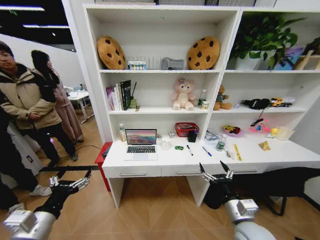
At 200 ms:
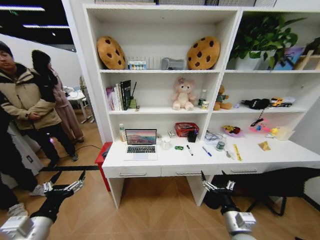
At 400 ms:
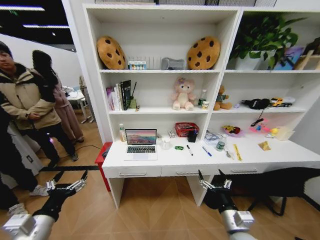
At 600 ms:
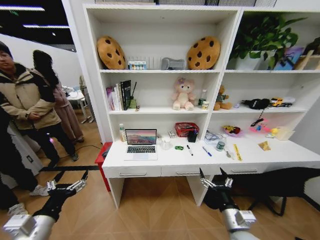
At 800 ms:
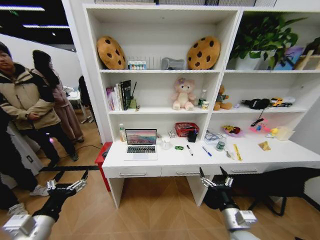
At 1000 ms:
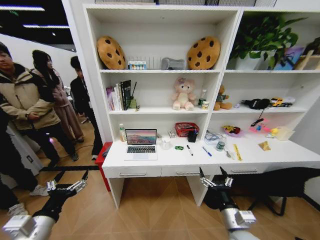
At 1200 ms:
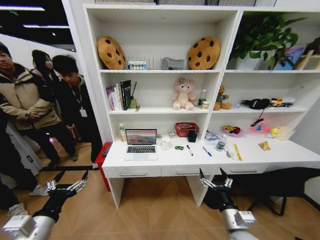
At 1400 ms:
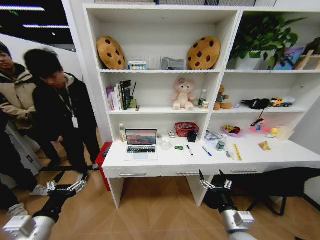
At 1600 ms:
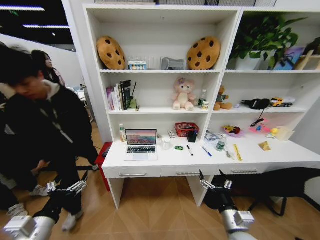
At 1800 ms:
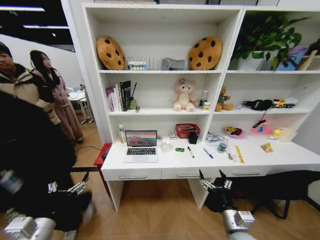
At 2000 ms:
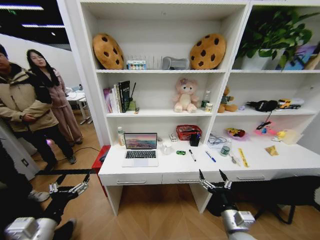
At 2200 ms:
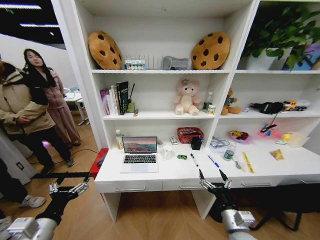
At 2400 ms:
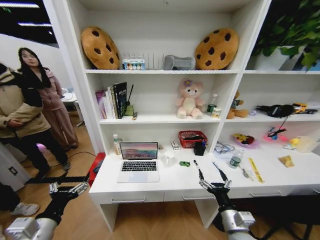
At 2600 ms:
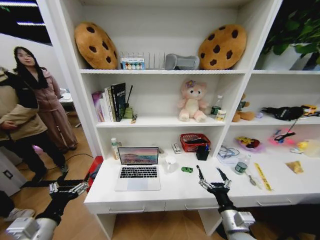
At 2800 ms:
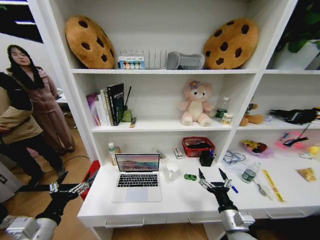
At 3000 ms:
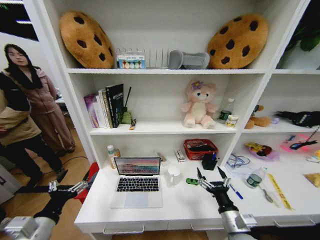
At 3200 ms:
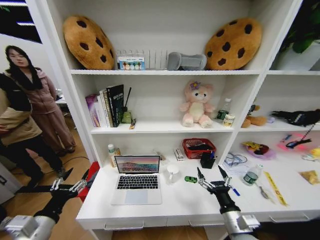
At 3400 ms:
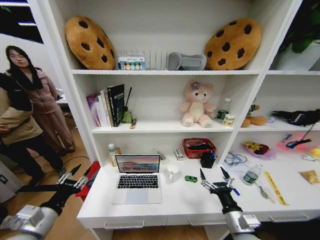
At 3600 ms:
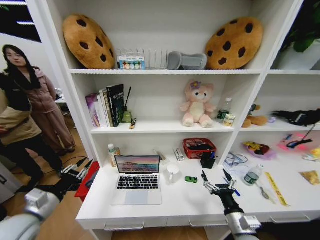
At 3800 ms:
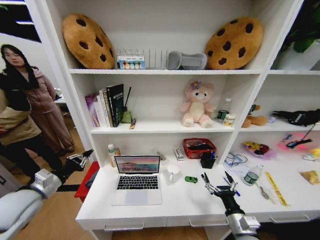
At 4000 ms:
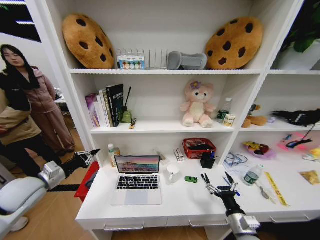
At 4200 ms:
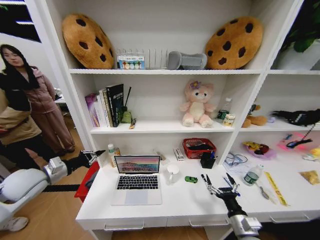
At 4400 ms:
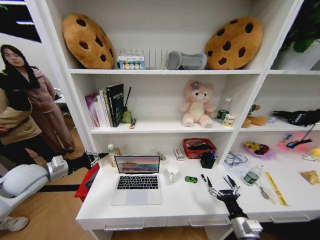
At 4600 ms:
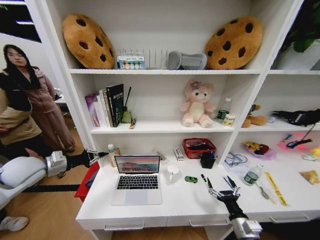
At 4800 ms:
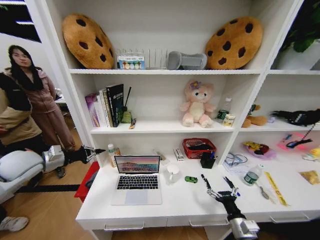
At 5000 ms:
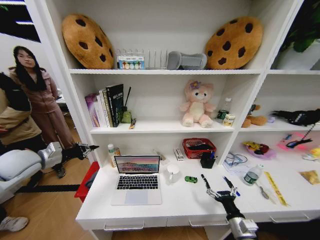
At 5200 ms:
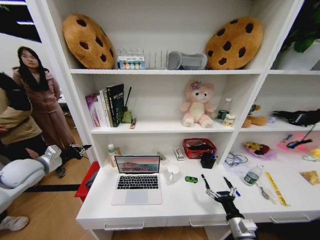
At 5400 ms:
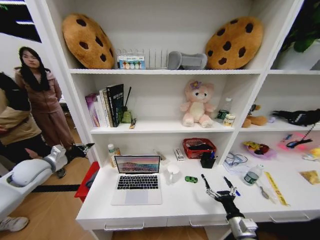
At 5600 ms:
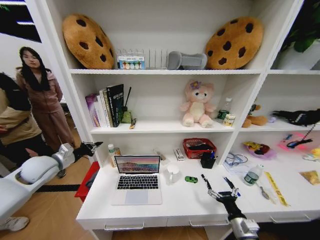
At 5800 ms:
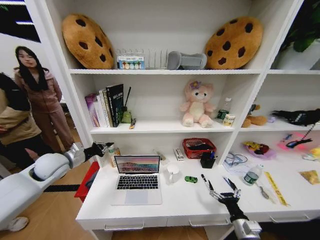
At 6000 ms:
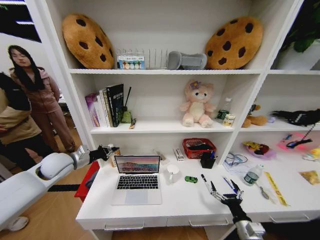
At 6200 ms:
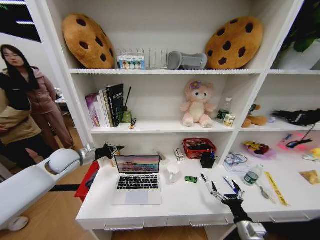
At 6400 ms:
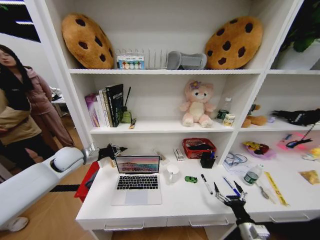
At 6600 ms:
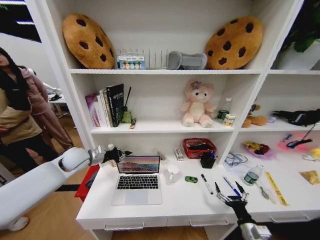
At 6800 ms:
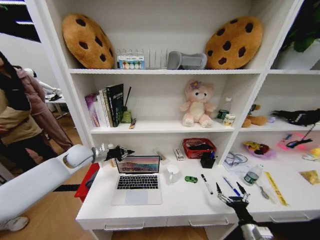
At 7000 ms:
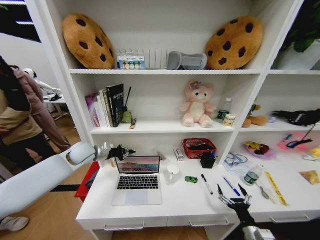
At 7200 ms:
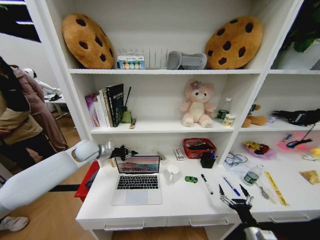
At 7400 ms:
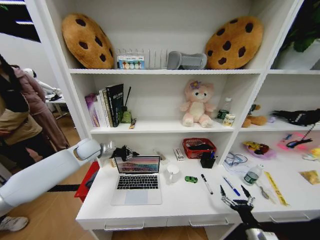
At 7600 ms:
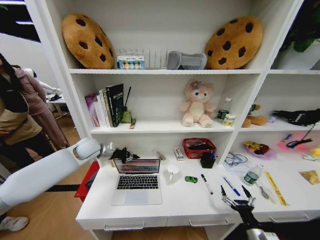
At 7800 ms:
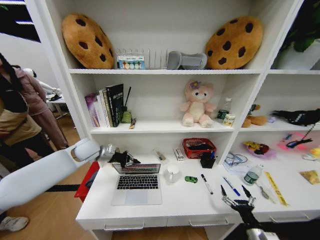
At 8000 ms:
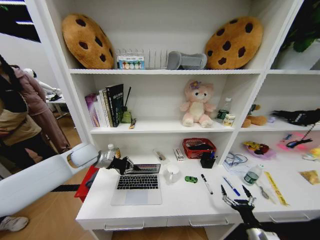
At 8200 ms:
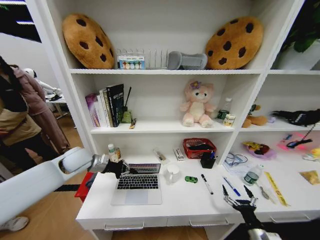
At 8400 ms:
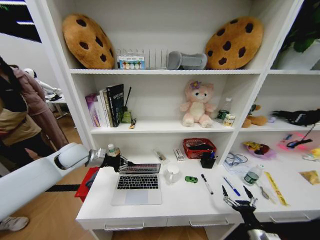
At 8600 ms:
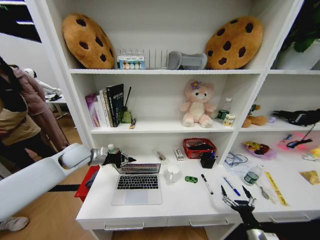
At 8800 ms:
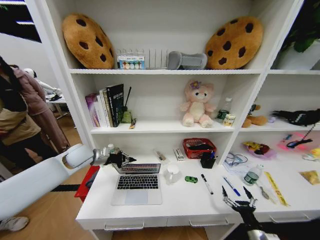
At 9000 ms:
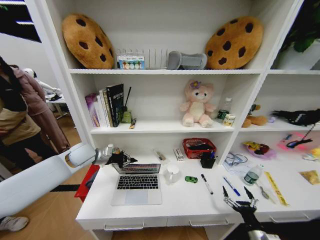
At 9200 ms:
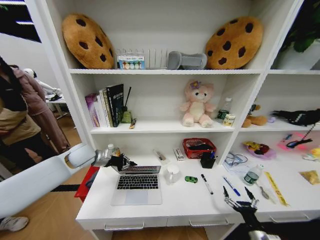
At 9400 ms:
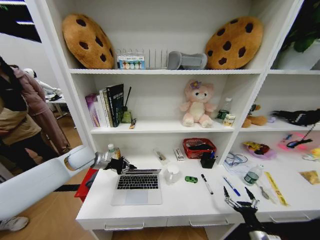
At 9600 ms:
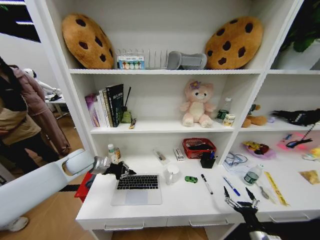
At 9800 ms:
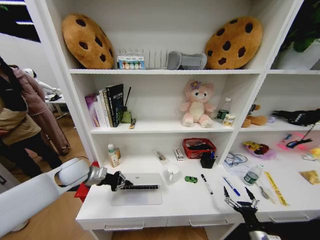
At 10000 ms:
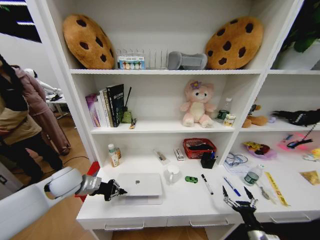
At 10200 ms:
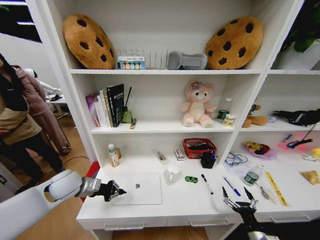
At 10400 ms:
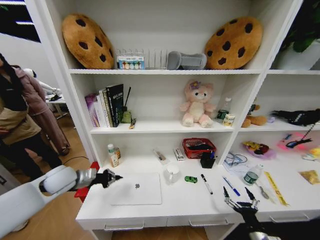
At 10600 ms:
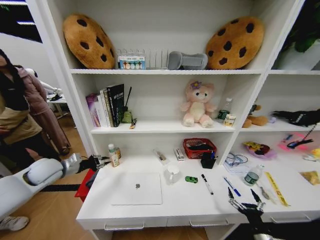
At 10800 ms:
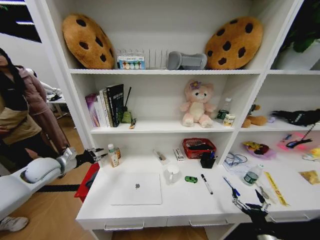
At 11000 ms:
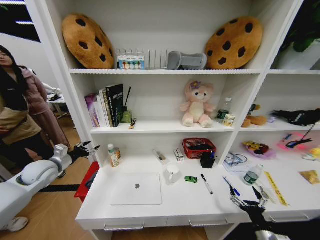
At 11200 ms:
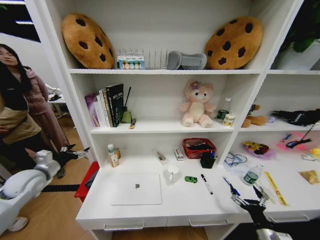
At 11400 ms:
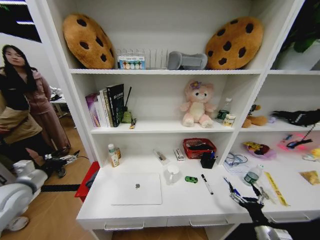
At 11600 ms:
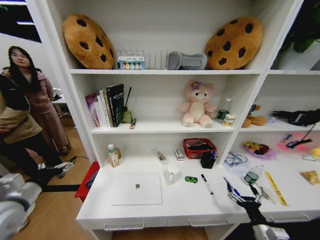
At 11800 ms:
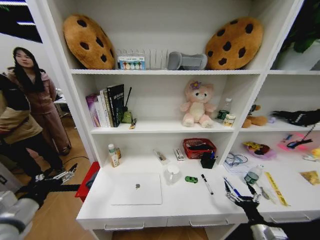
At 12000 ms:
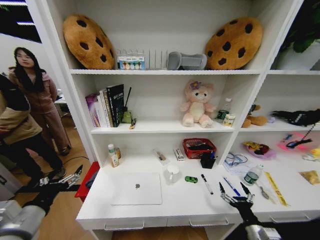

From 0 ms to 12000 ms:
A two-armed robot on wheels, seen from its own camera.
Task of the whole recording: Organize the objects on the table.
From 3000 ms to 4400 ms: The left gripper goes about 20 cm forward and to the left, and closes its fingers. Meanwhile the right gripper heads to the right and downward, covering about 10 cm.
From 4400 ms to 6000 ms: The left gripper shifts some 10 cm forward and to the right.
From 6000 ms to 7600 ms: The left gripper shifts some 10 cm forward and to the right.
From 9000 ms to 10400 ms: The left gripper moves backward and to the left, some 10 cm.
From 10400 ms to 12000 ms: The left gripper shifts about 20 cm backward, and opens.

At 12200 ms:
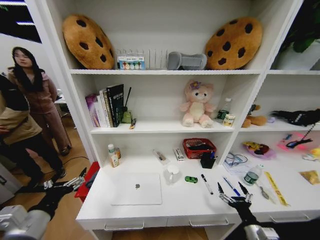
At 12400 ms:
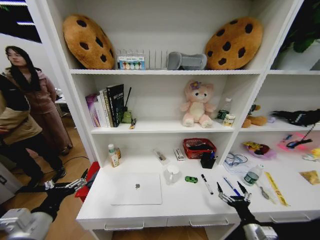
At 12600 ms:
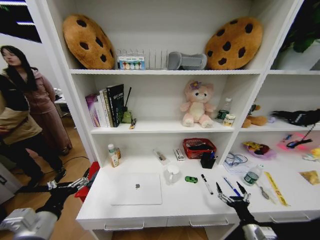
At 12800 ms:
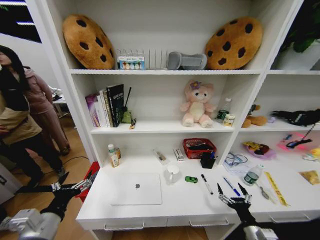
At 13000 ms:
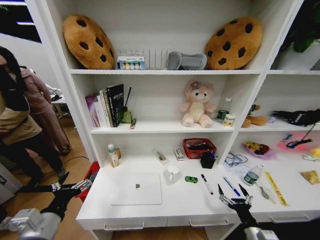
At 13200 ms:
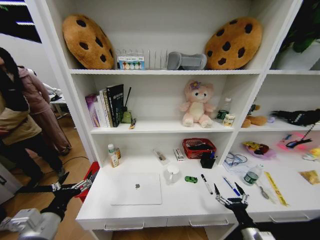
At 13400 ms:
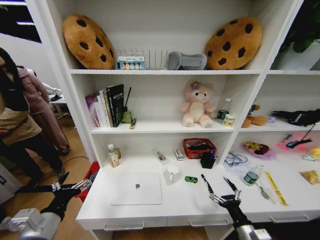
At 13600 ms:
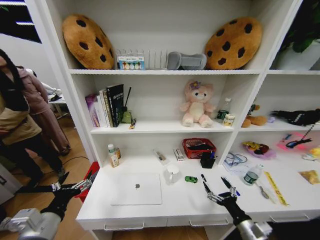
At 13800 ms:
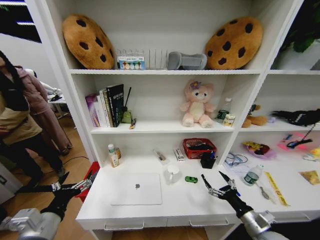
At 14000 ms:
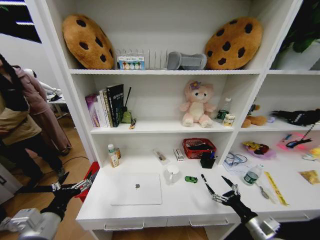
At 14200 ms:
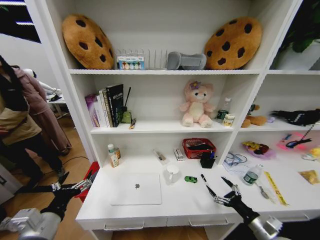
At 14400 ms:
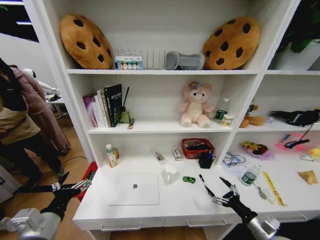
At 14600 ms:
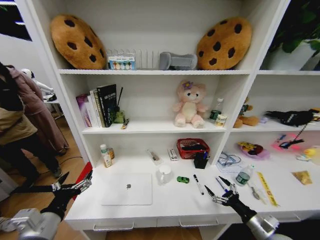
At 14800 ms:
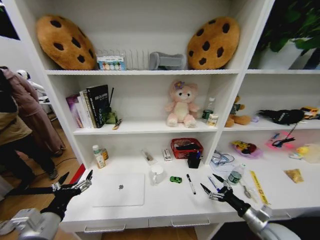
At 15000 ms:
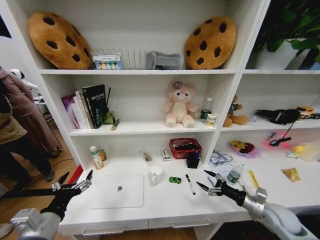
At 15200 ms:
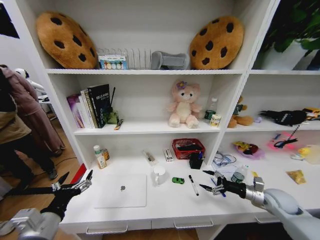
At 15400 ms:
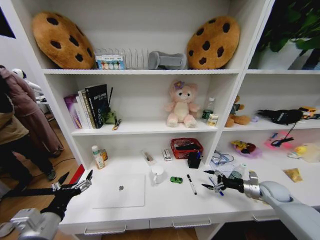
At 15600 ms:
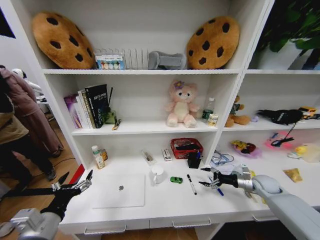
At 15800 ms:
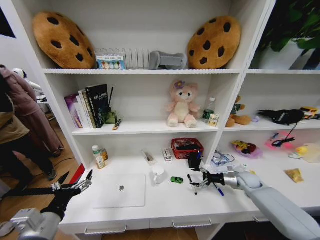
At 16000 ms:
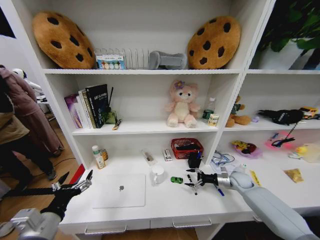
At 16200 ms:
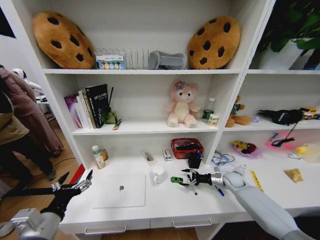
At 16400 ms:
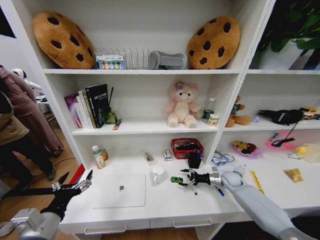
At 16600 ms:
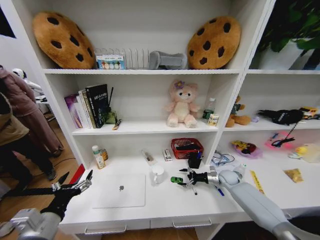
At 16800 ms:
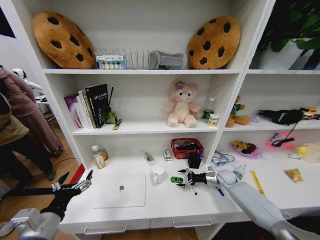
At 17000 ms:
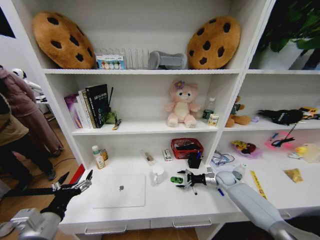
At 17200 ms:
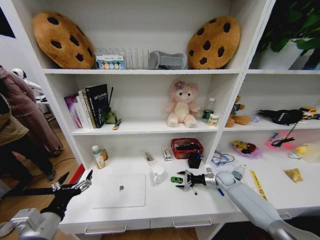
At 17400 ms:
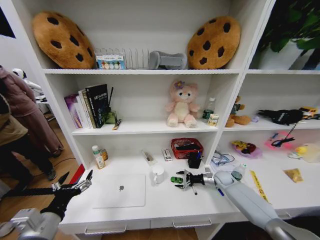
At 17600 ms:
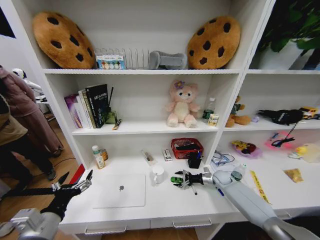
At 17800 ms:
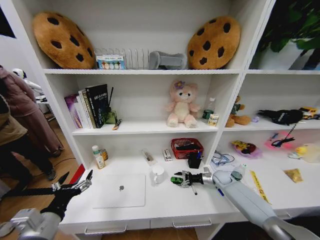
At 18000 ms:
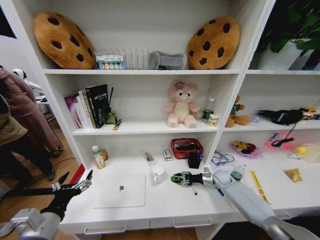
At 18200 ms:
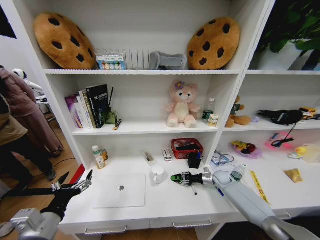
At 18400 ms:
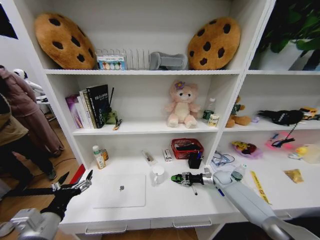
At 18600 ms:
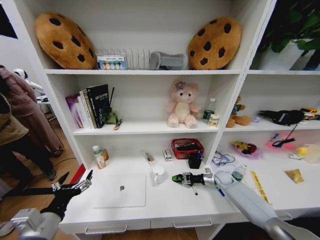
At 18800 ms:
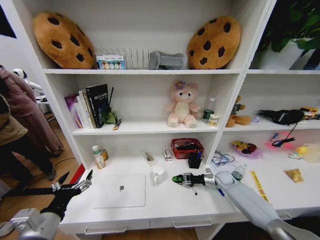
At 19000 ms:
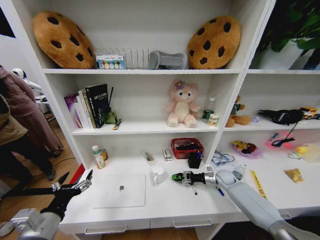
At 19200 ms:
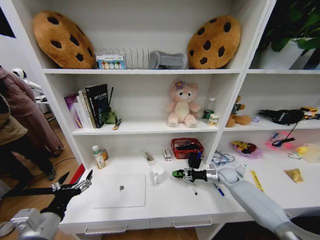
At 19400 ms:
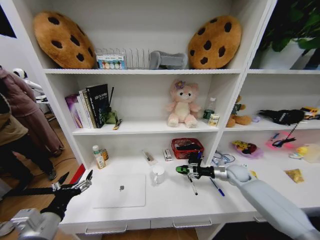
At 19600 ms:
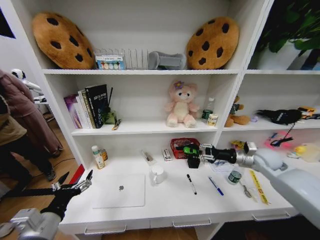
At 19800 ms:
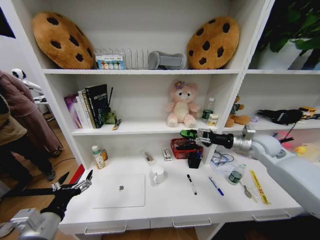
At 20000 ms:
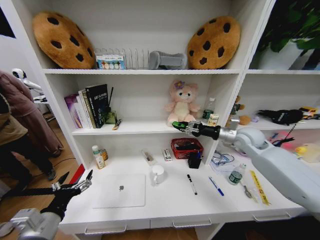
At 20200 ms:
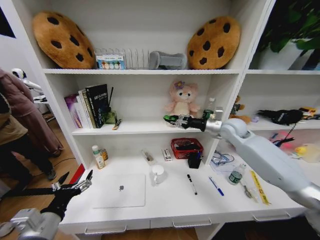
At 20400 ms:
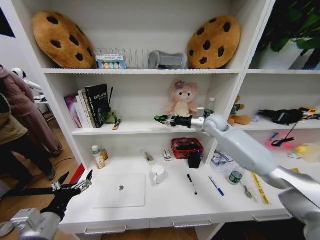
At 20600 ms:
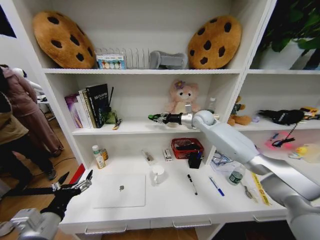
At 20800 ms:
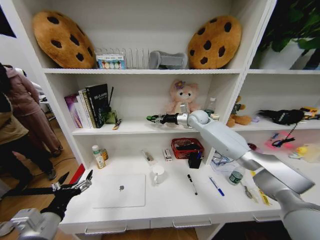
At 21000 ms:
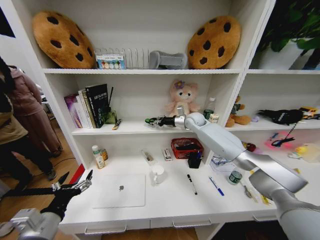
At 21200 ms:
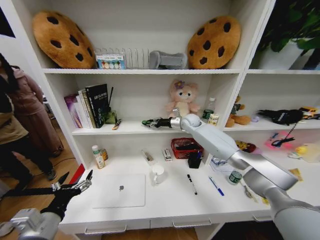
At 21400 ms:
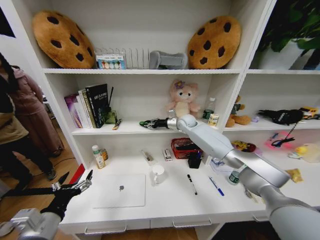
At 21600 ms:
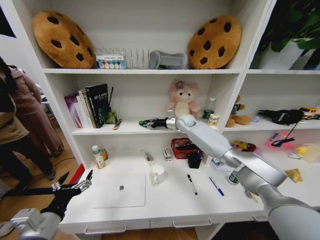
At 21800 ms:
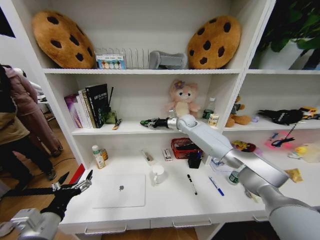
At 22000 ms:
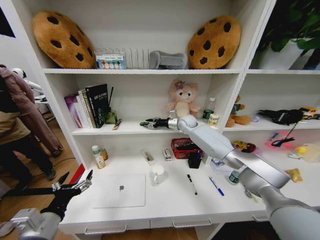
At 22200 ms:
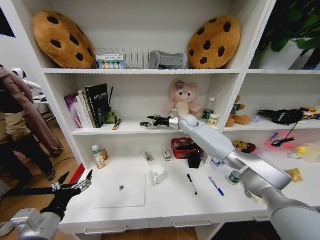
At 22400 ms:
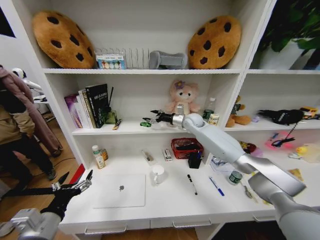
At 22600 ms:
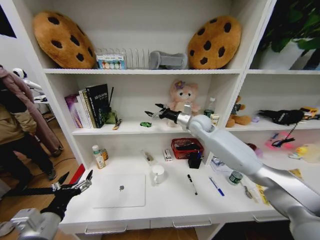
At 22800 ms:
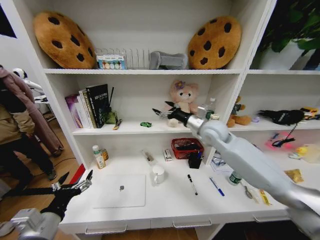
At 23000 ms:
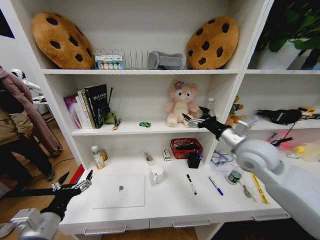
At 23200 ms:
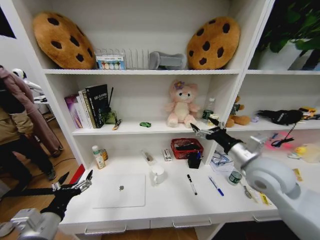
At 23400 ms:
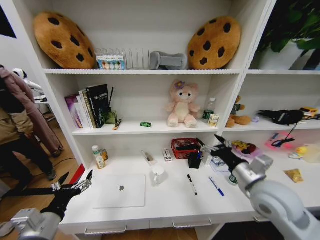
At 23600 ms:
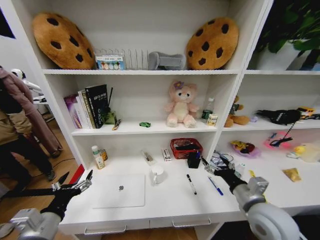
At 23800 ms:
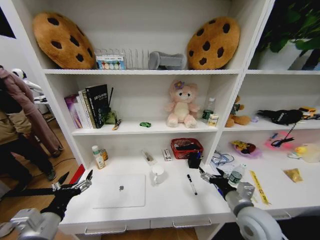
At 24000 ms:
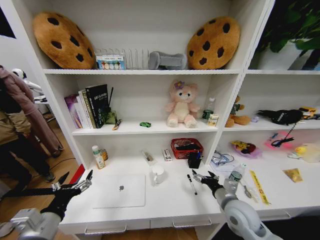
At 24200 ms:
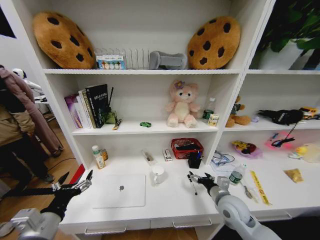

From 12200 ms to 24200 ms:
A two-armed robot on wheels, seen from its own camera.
Task of the whole recording: Organize the objects on the table.
From 12200 ms to 13800 ms: The right gripper moves upward, about 5 cm.
From 13800 ms to 15200 ms: The right gripper heads forward and to the right, covering approximately 15 cm.
From 15200 ms to 16600 ms: The right gripper is displaced forward, downward and to the left by about 20 cm.
From 16600 ms to 18200 ms: The right gripper closes its fingers.
From 18200 ms to 19800 ms: The right gripper is displaced upward by approximately 30 cm.
From 19800 ms to 21200 ms: The right gripper is displaced to the left and forward by roughly 30 cm.
From 21200 ms to 22600 ms: The right gripper goes about 10 cm backward, and opens.
From 22600 ms to 24200 ms: The right gripper moves backward and downward, about 35 cm.
